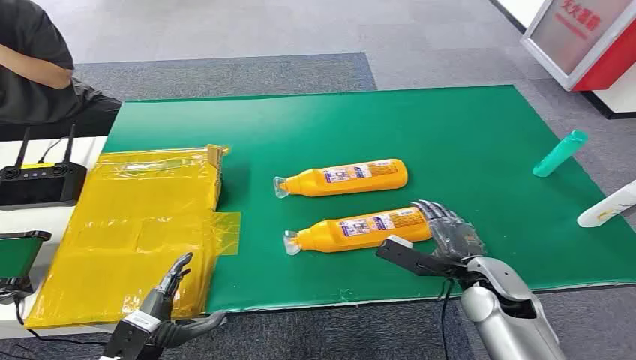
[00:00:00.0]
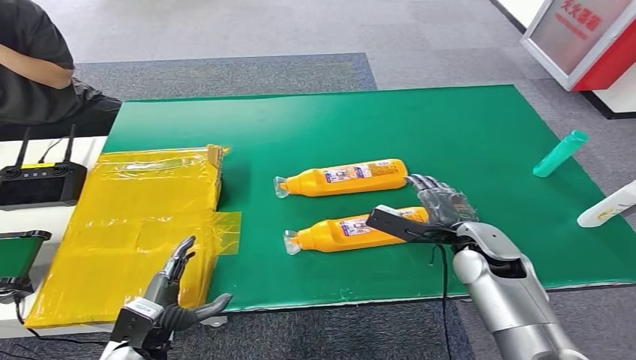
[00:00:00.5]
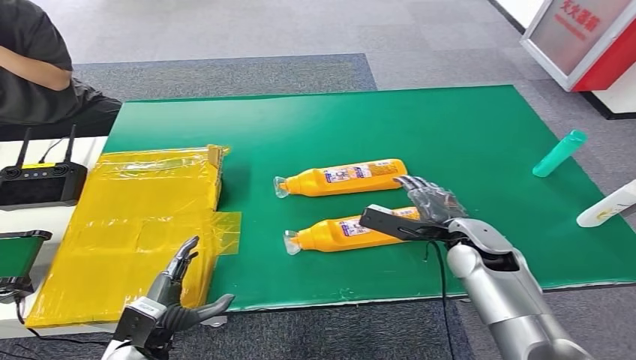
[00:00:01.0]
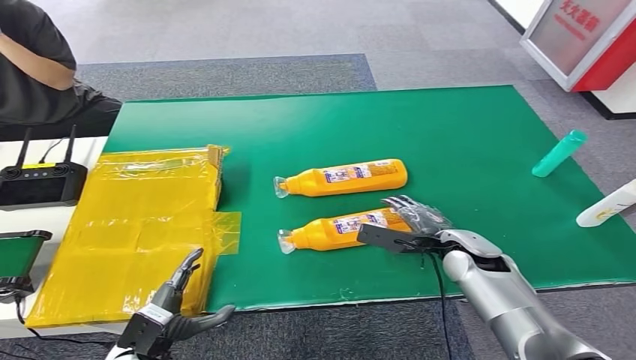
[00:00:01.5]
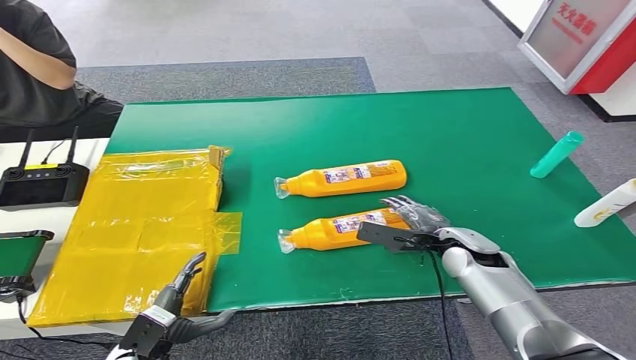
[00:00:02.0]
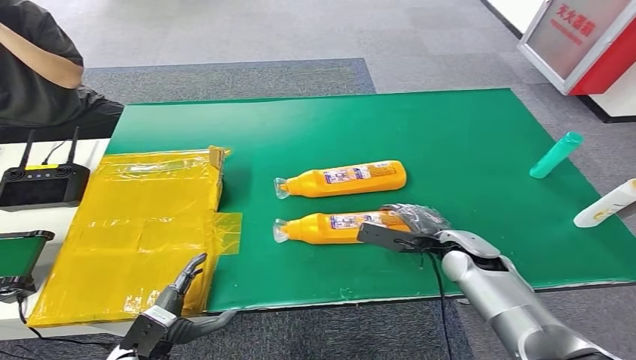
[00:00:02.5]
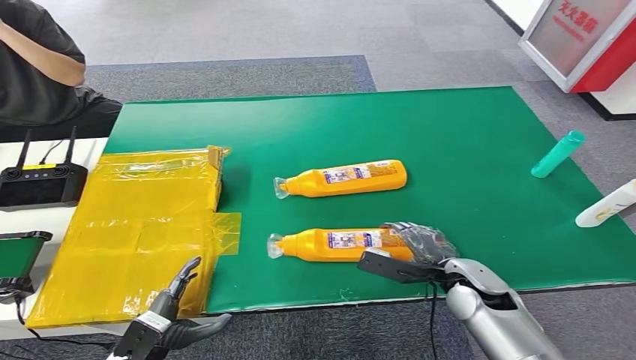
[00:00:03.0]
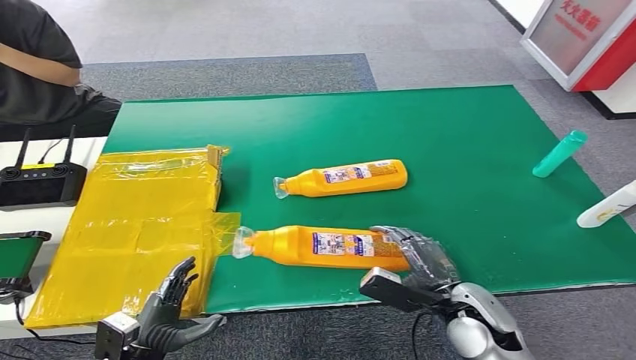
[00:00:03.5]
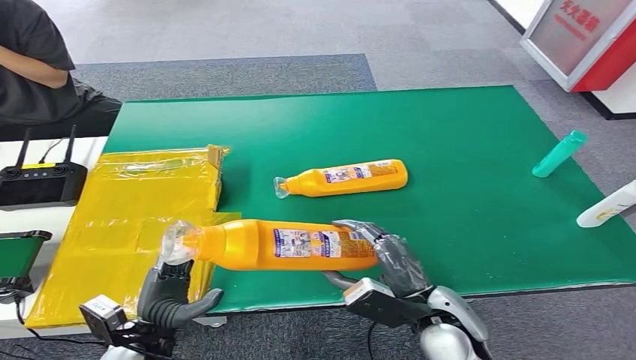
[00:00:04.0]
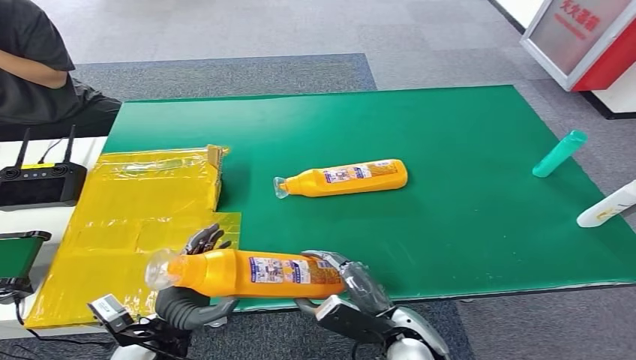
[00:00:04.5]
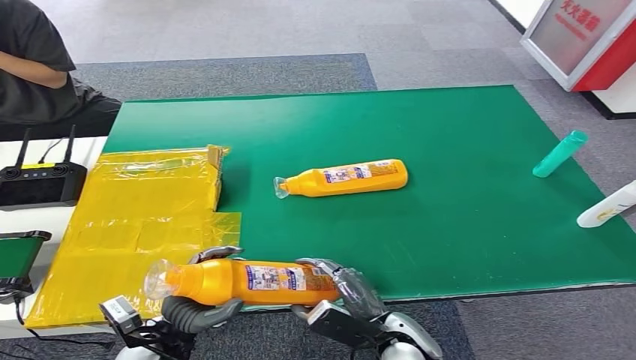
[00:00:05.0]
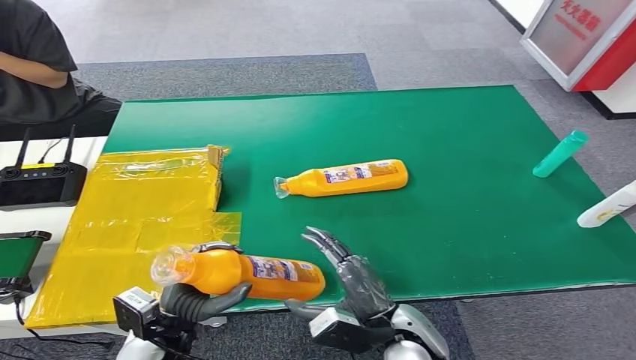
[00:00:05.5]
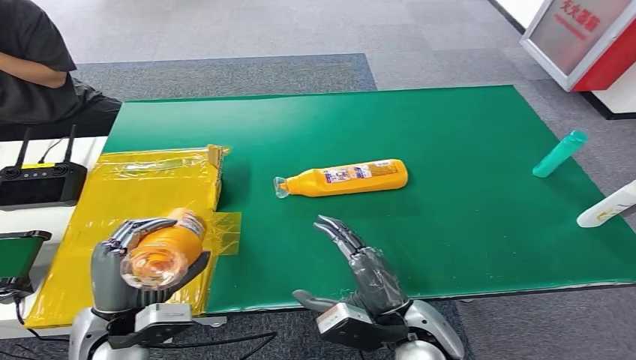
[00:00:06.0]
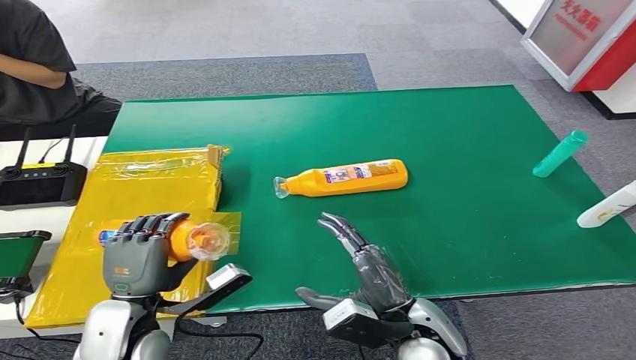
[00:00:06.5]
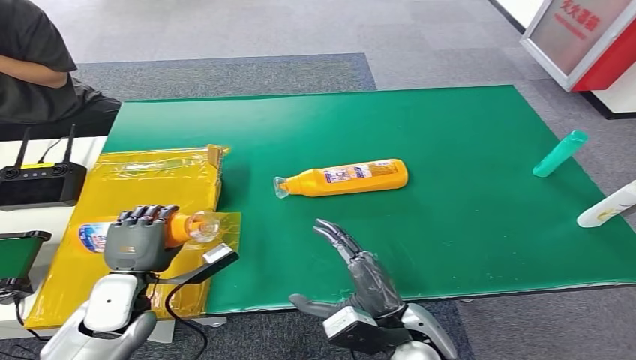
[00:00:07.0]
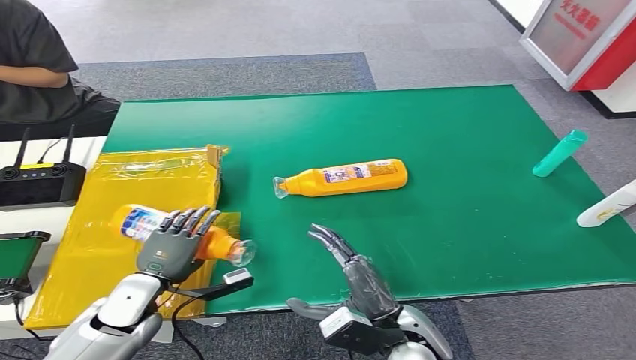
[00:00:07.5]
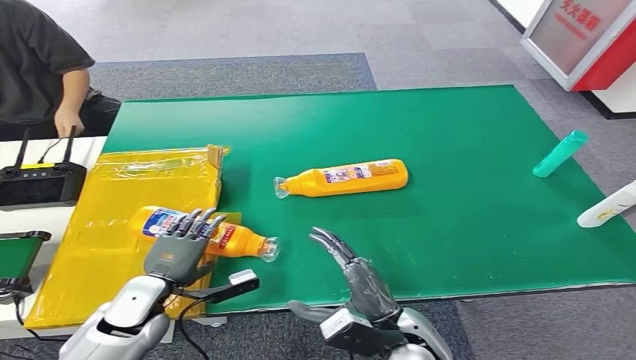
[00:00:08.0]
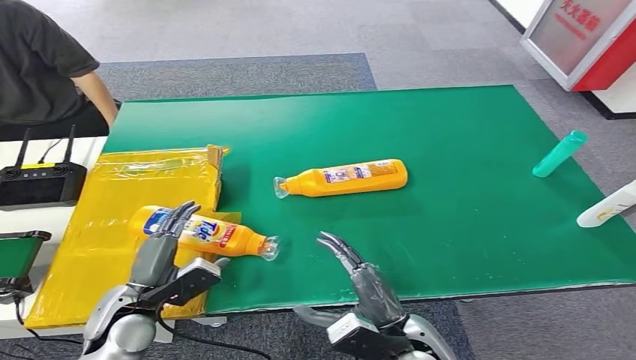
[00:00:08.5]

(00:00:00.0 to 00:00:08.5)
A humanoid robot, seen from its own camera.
Step, 00:00:00.0 - 00:00:03.0: Pick up the bottle from the table.
Step, 00:00:03.5 - 00:00:08.5: Turn the bottle to the front side.
00:00:02.0 - 00:00:04.0: The right hand moves backward and to the left, roughly 15 cm. Meanwhile the left hand moves about 5 cm.
00:00:04.0 - 00:00:06.5: The left hand goes approximately 10 cm upward, while the right hand moves about 5 cm downward and comes back.

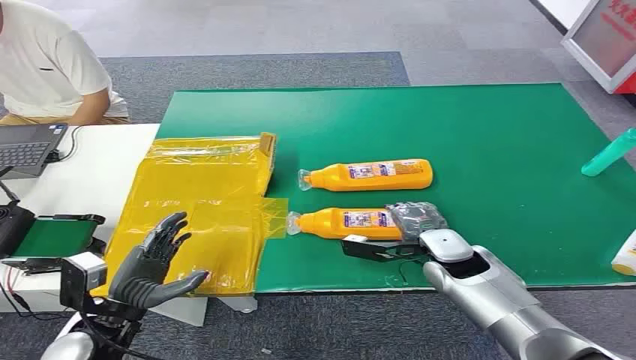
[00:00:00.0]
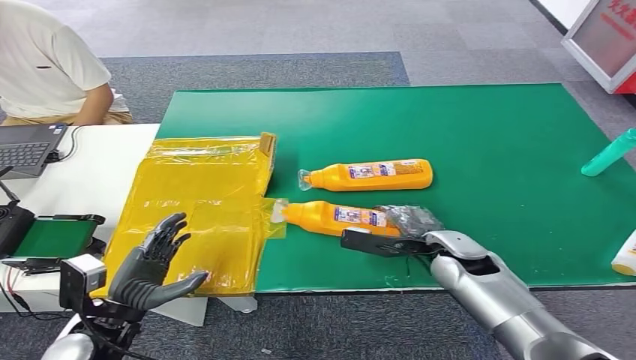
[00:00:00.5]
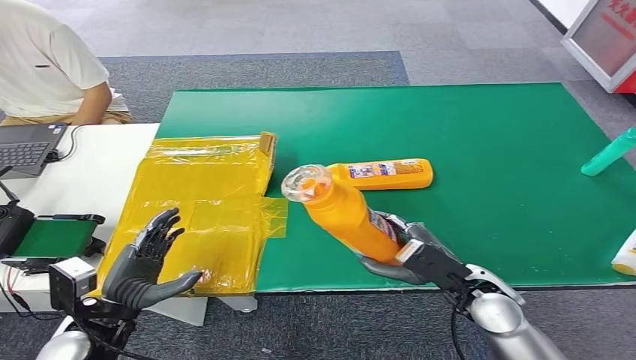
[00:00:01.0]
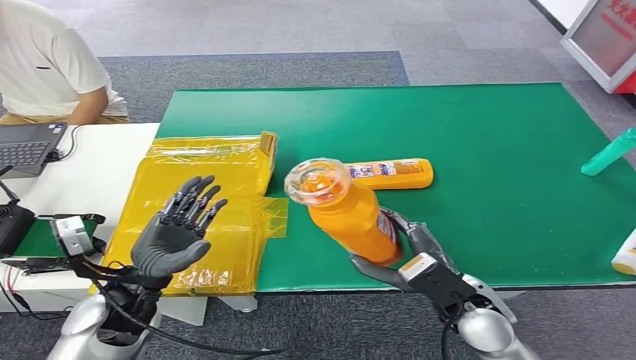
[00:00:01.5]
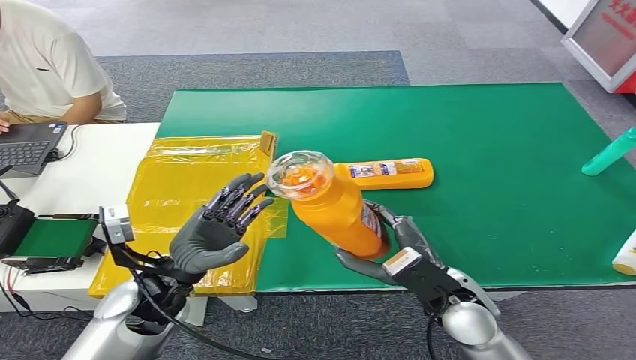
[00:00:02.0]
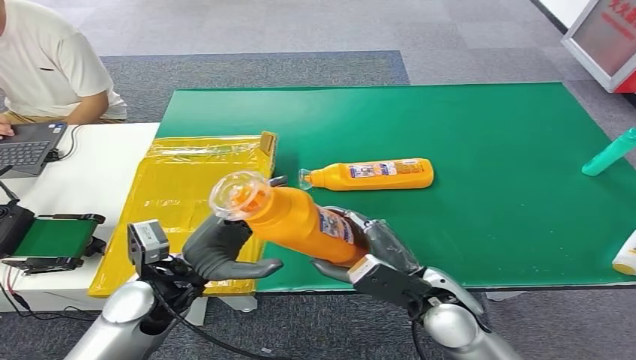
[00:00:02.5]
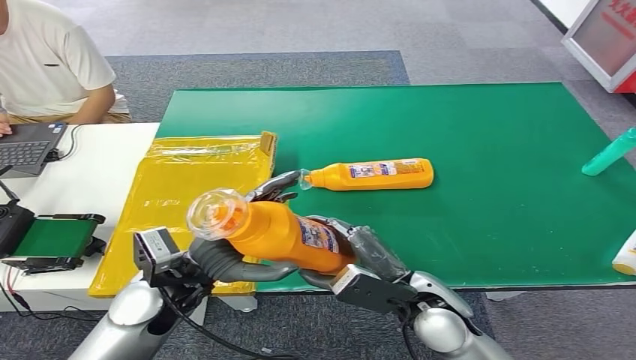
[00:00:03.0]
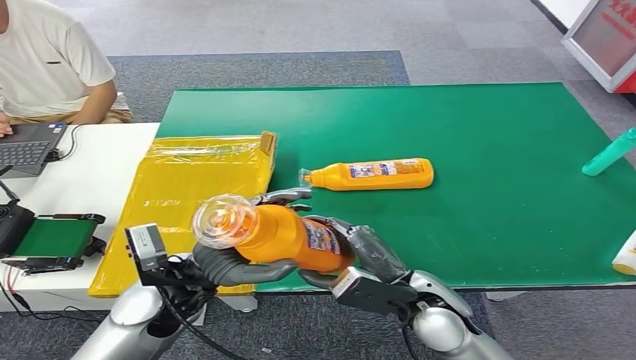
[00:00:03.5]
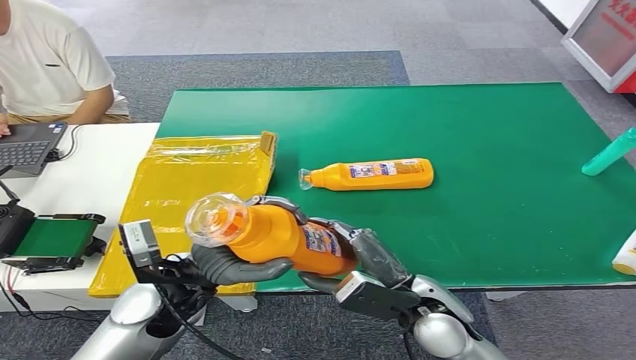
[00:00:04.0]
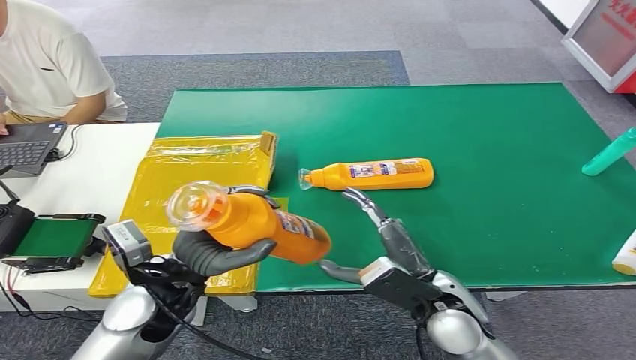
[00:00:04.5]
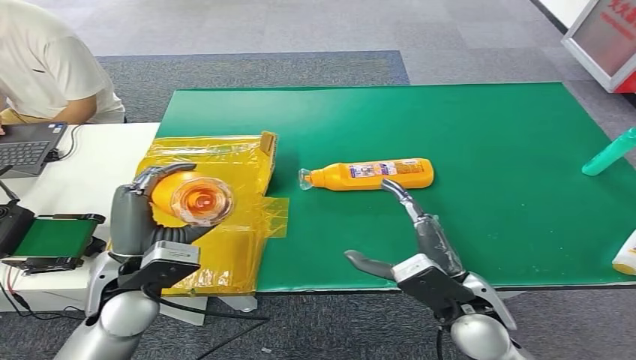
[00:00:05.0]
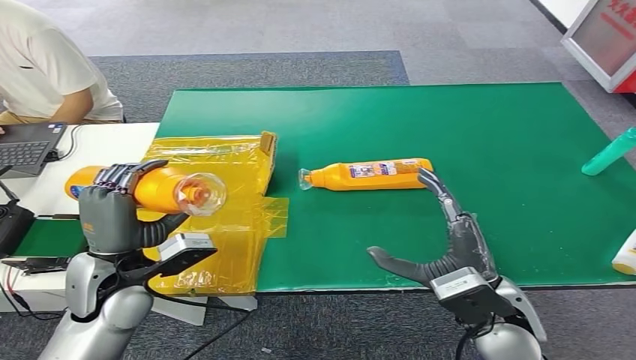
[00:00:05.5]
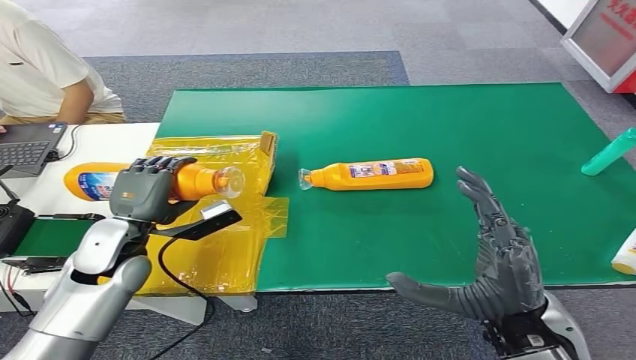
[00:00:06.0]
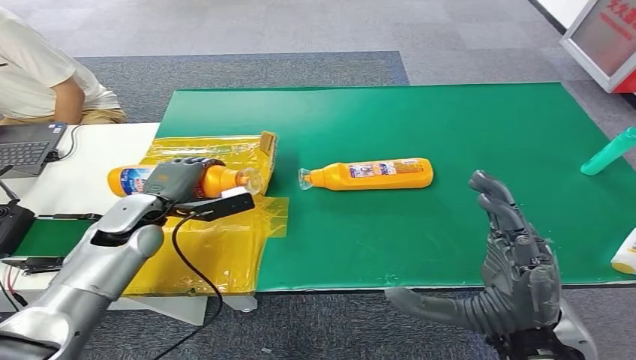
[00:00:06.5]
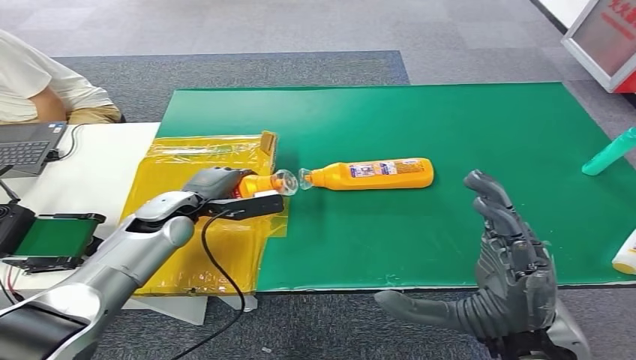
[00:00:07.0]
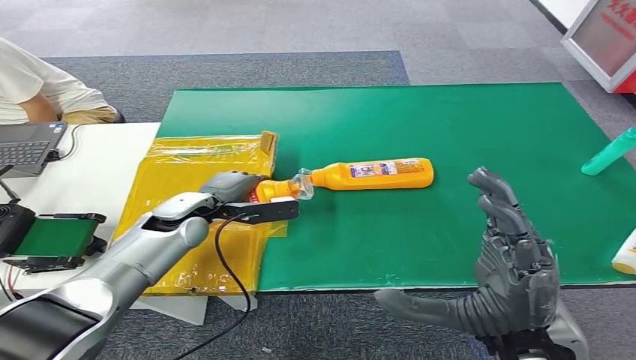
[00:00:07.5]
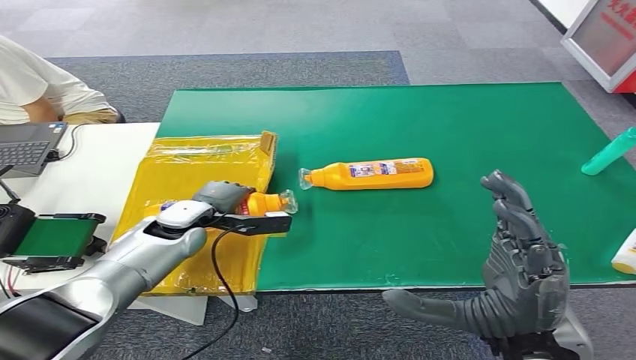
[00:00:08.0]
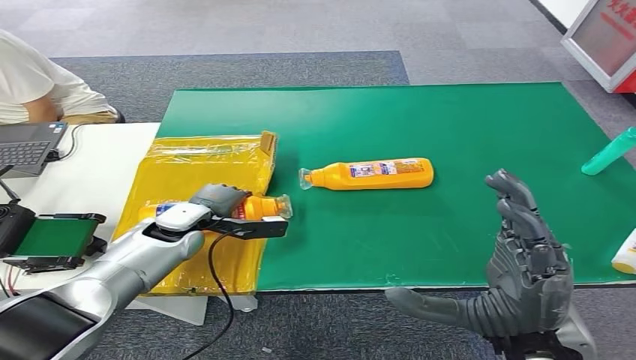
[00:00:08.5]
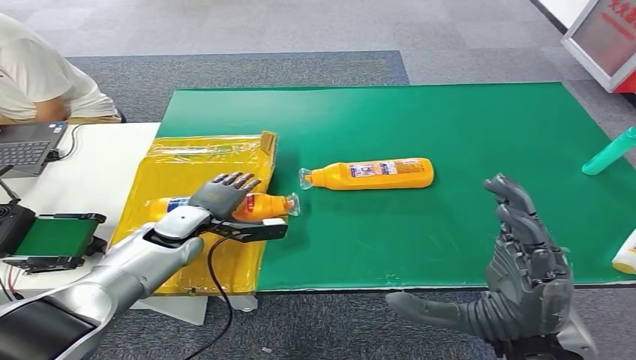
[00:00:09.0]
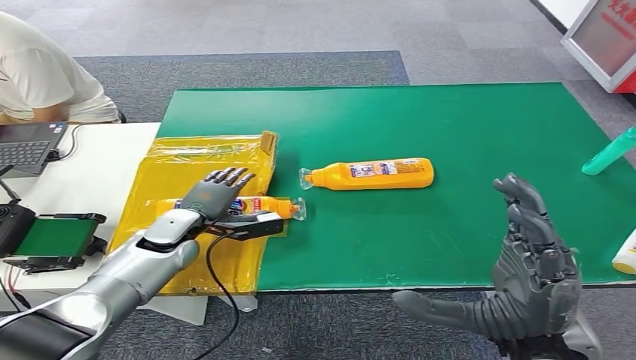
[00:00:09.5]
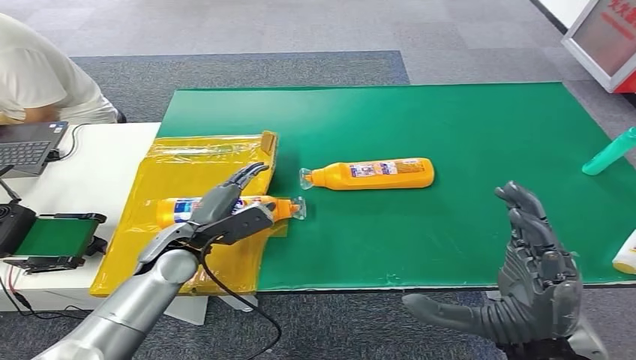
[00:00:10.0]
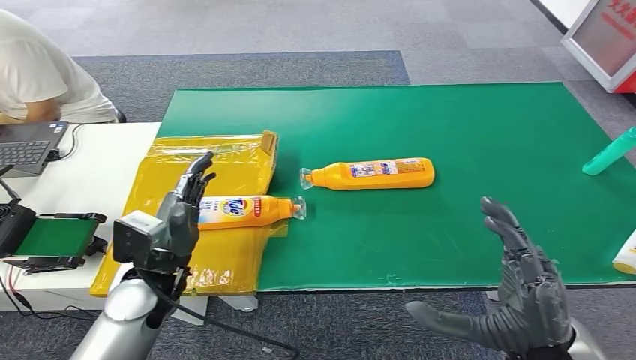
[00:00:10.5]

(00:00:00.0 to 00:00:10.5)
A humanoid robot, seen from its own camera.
Step, 00:00:00.0 - 00:00:01.5: Pick up the bottle from the table.
Step, 00:00:02.5 - 00:00:10.5: Turn the bottle to the front side.
00:00:06.5 - 00:00:08.5: The left hand shifts by roughly 5 cm.
00:00:08.5 - 00:00:10.5: The left hand moves backward and upward, about 15 cm. The right hand shifts by roughly 5 cm.
